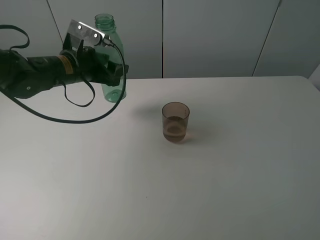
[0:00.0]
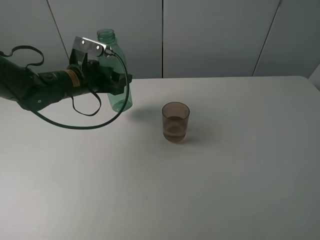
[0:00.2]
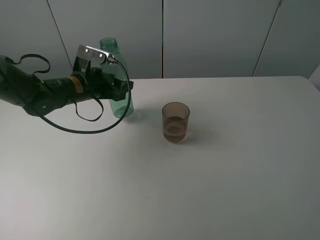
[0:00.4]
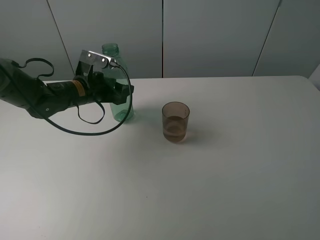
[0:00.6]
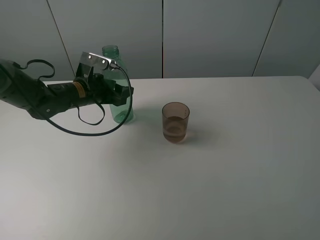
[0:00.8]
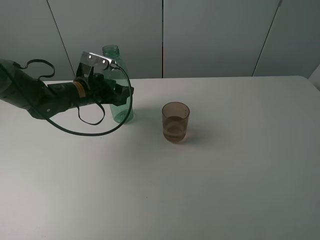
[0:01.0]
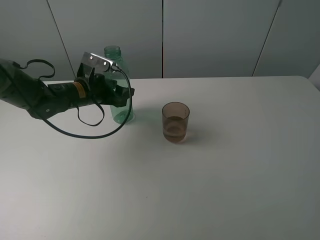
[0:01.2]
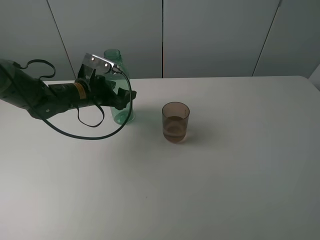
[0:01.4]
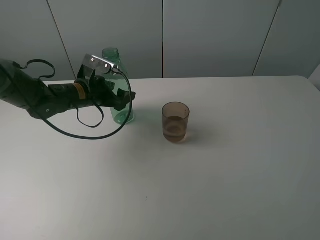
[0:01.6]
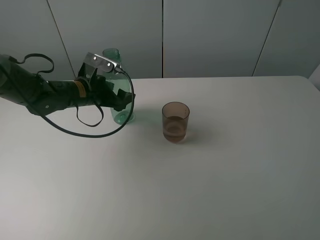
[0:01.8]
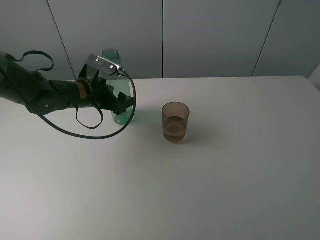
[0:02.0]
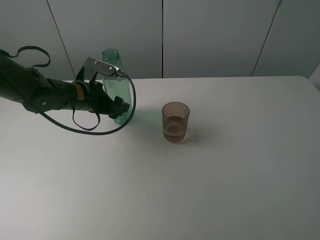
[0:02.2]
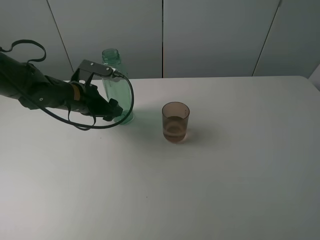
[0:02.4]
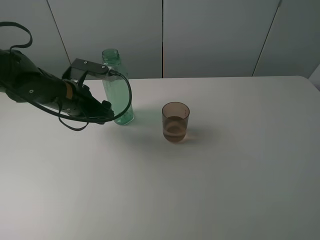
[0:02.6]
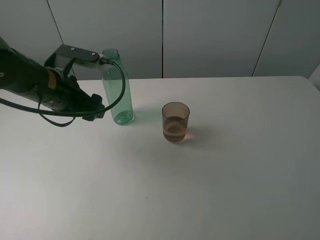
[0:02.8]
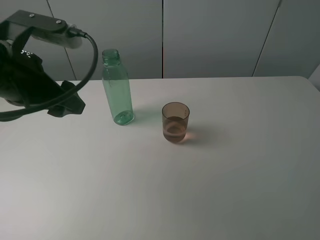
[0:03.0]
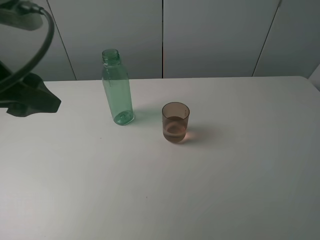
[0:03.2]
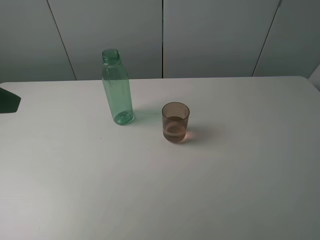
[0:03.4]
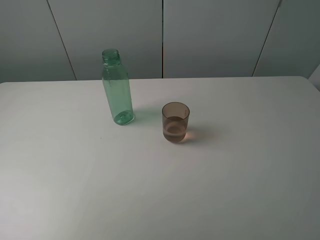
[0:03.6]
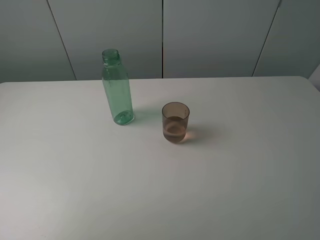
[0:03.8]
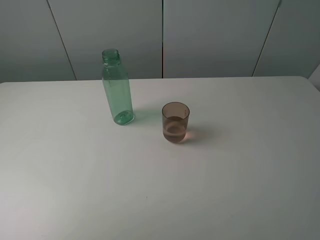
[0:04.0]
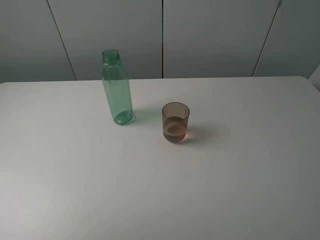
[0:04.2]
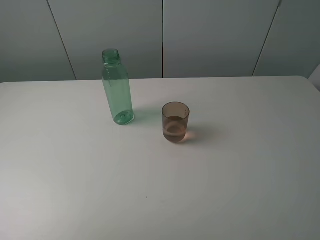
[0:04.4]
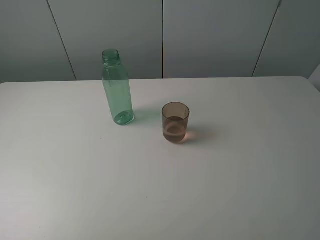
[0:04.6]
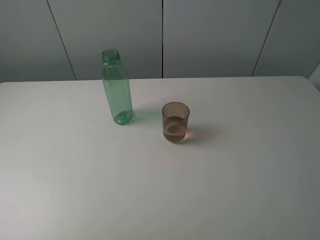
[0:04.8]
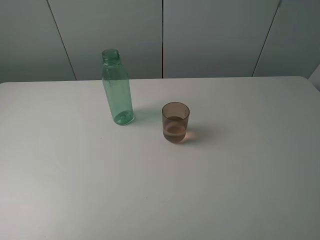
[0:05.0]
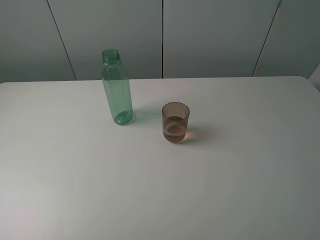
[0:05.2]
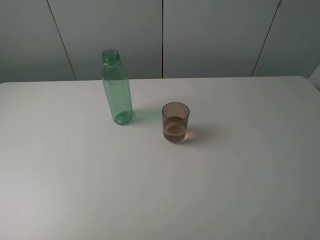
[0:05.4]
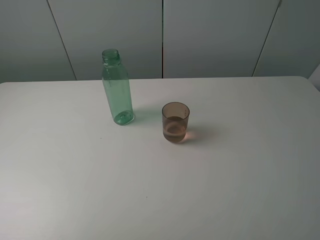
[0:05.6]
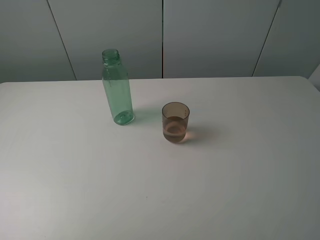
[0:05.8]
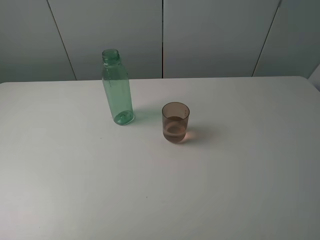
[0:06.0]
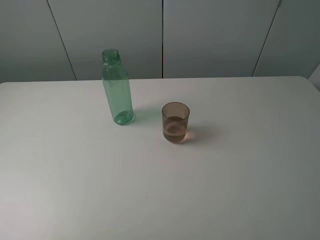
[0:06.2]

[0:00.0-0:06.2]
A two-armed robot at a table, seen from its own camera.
Task of the whole recording: pick up the bottle filled with water and pour it into the pink cup.
Step, 0:00.0 to 0:02.8: Place the green bottle with the left gripper.
0:00.0 to 0:01.6: The left gripper heads downward, covering some 5 cm, and opens.
0:01.6 to 0:03.2: The left gripper heads upward and backward, covering approximately 30 cm.
0:03.2 to 0:04.6: The left gripper is displaced backward and to the left by roughly 20 cm.
0:04.6 to 0:06.2: The two grippers keep their place.
